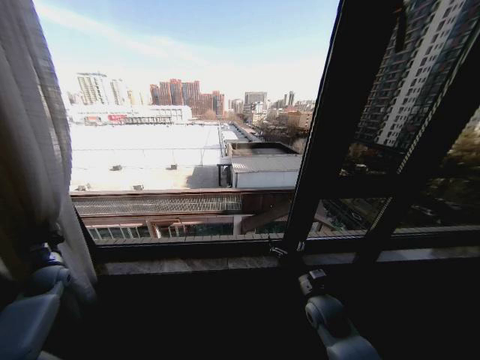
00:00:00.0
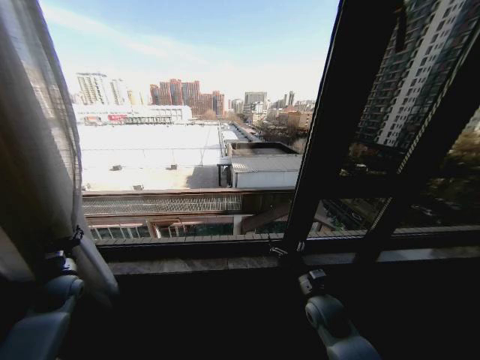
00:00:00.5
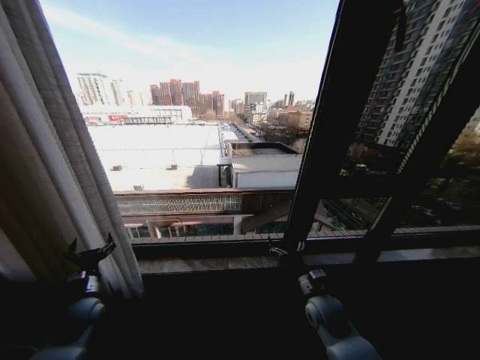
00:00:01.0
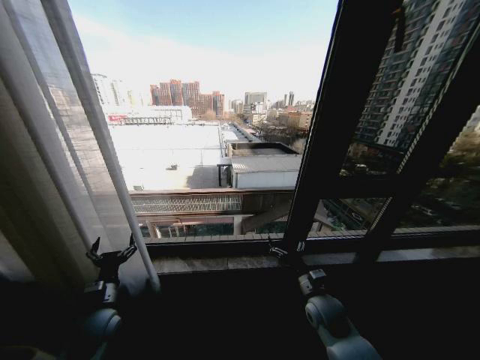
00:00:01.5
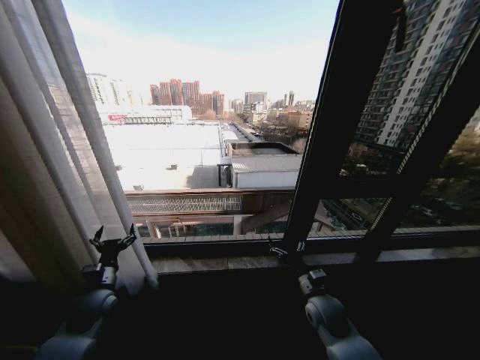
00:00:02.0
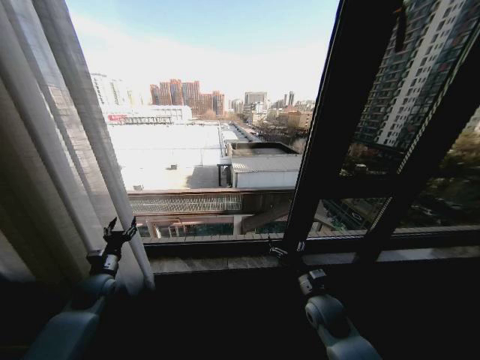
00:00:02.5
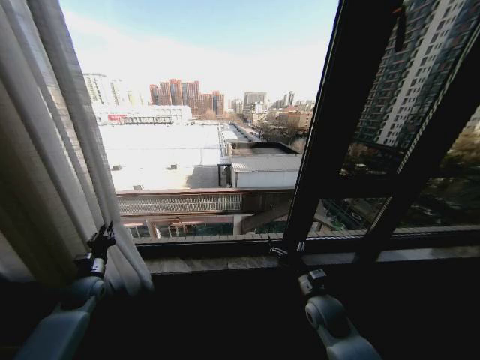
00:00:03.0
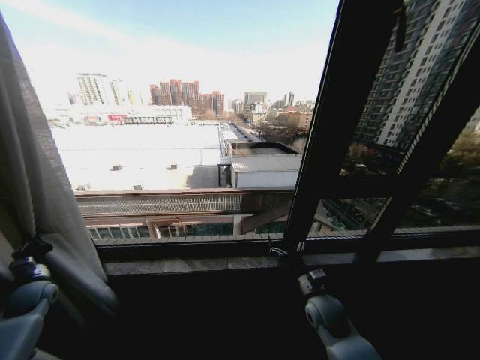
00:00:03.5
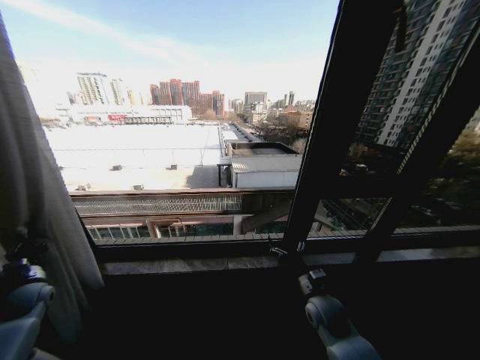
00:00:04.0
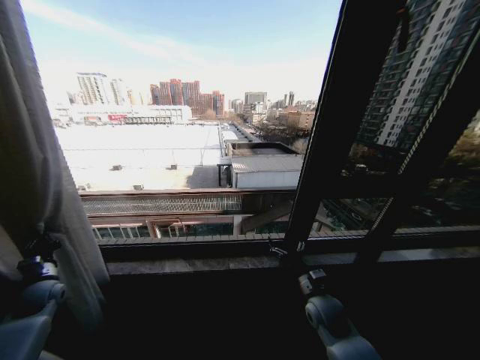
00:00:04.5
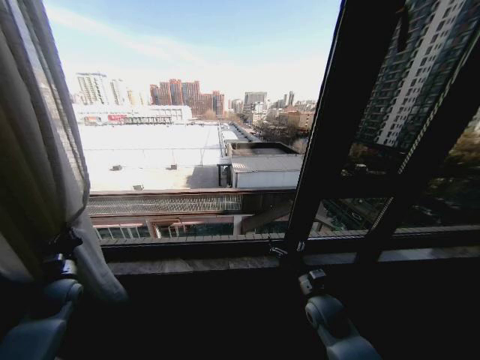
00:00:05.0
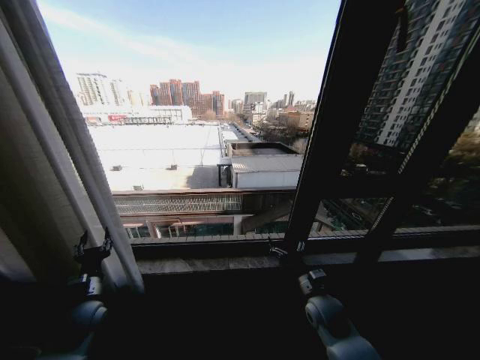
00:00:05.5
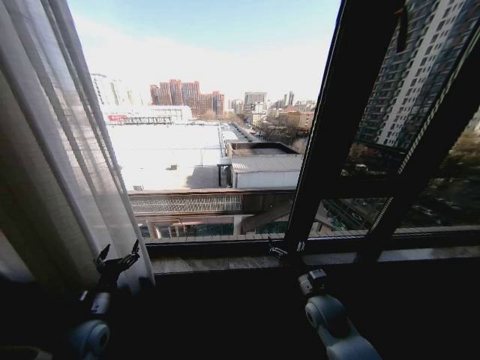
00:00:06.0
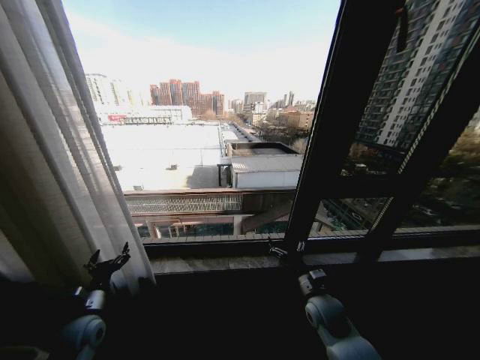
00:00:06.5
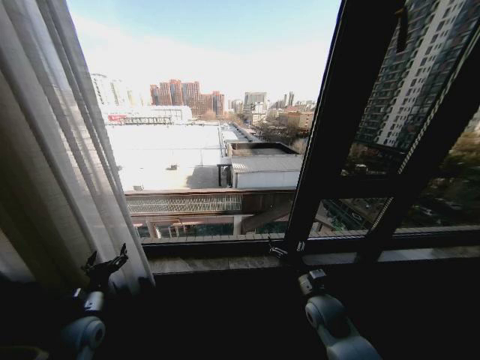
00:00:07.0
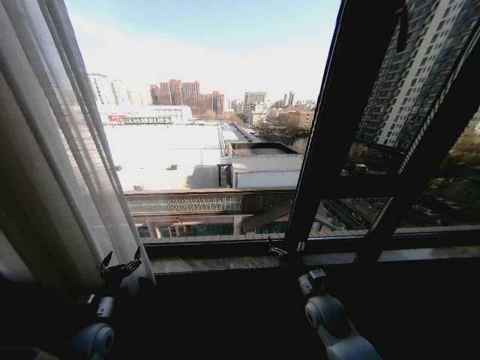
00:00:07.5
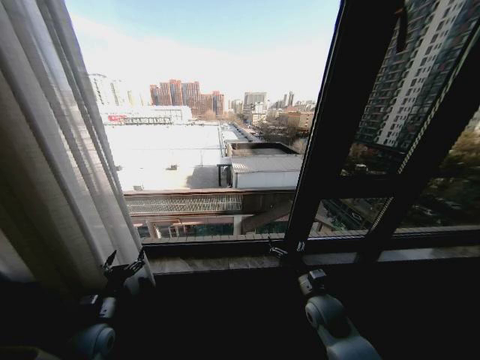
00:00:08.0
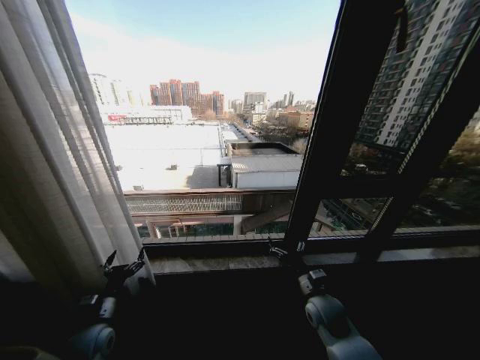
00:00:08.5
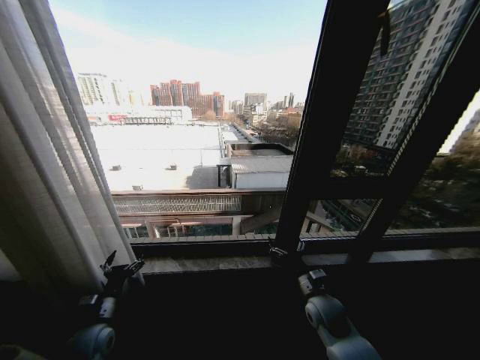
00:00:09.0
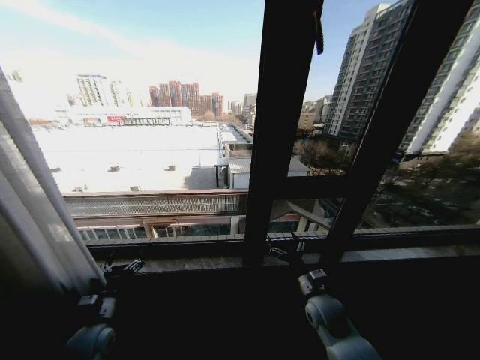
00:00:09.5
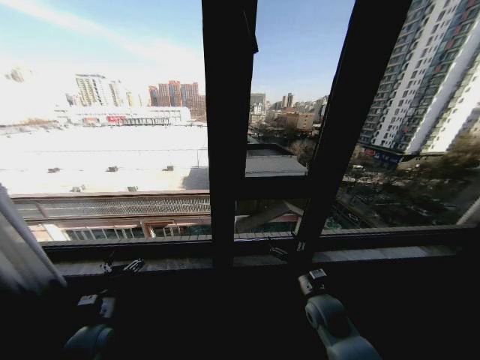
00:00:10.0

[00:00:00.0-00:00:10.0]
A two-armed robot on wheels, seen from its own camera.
Task of the whole recording: Open the curtains by pulling them apart, changing their state from closed to fully open.
00:00:00.0 to 00:00:02.0: The left gripper moves to the right, some 20 cm, and opens its fingers.
00:00:02.0 to 00:00:04.0: The left gripper goes about 20 cm to the left, and closes up.
00:00:04.0 to 00:00:06.0: The left gripper moves to the right and backward, approximately 25 cm, and opens its fingers.
00:00:06.0 to 00:00:08.0: There are only small adjustments of the grippers.
